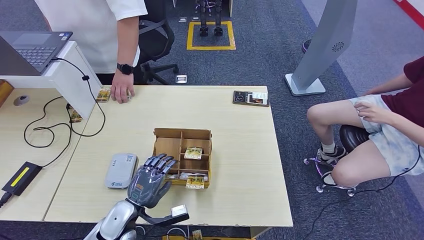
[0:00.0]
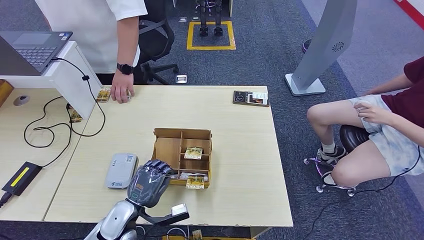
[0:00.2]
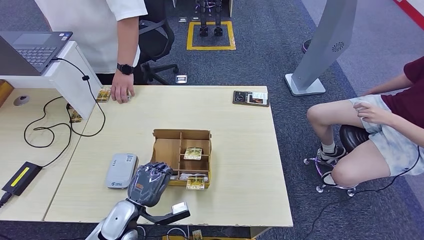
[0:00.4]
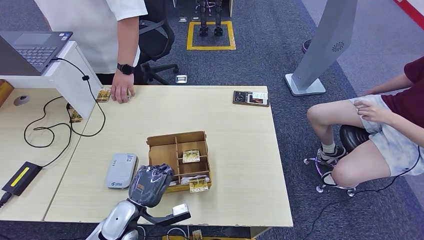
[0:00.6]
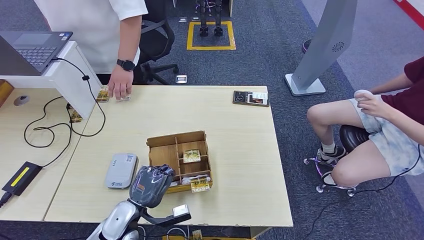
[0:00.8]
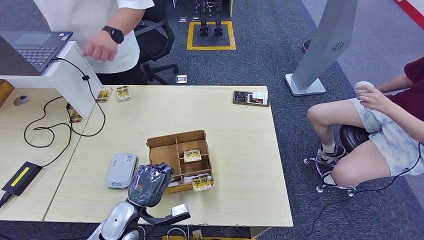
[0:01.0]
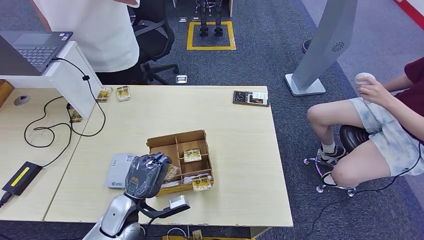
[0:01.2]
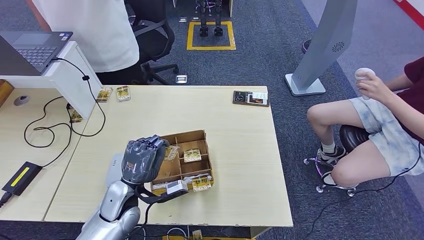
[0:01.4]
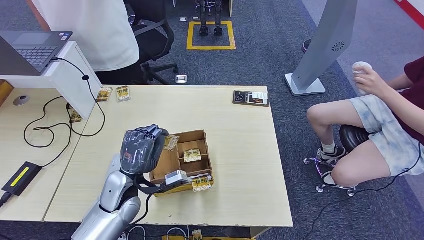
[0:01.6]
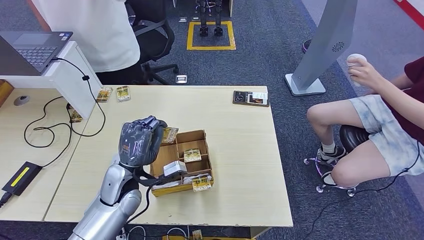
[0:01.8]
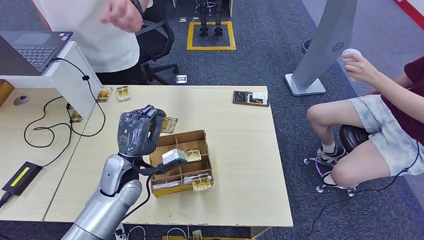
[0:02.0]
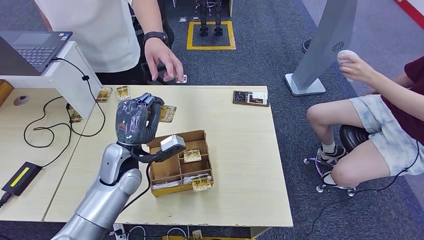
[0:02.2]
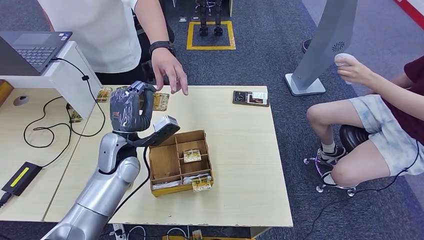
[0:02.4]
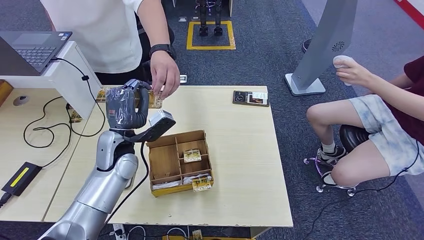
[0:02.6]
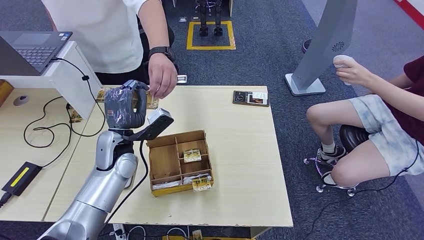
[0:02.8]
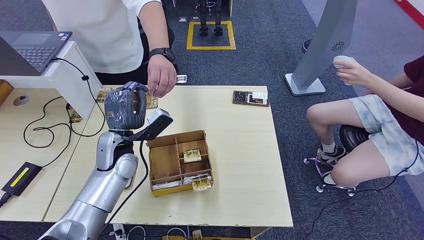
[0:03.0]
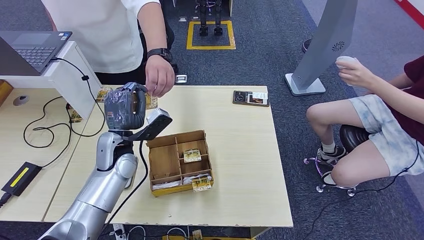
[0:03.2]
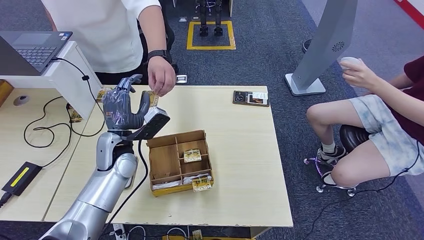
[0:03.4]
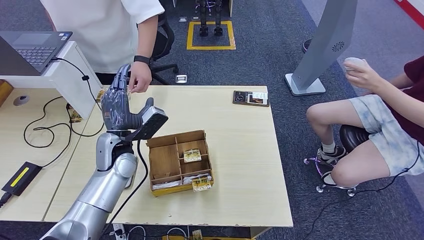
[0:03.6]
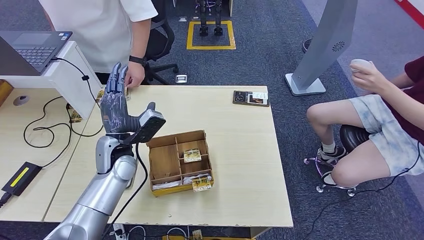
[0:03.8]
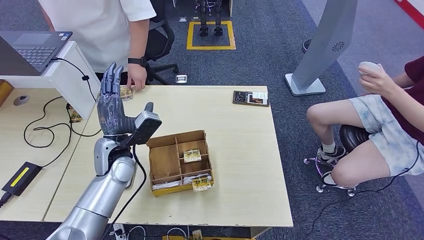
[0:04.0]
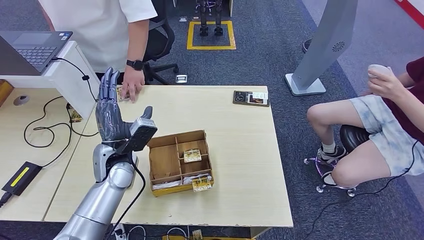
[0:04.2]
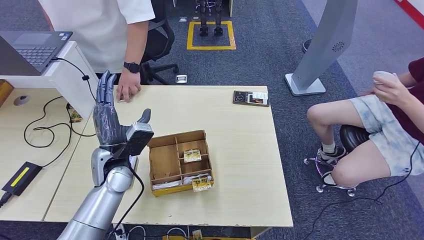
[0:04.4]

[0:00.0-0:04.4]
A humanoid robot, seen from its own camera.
Step, 0:02.8 to 0:04.4: Hand the room key to the person.
0:00.0 to 0:01.4: The left hand shifts roughly 5 cm upward.
0:01.4 to 0:03.0: The left hand goes about 15 cm forward and upward.
0:03.0 to 0:04.4: The hands move only a little.
